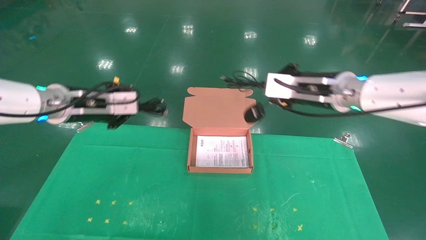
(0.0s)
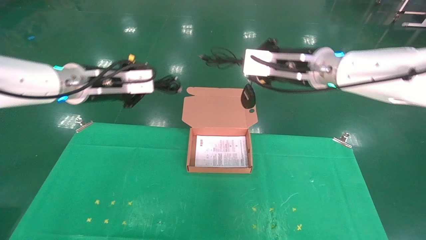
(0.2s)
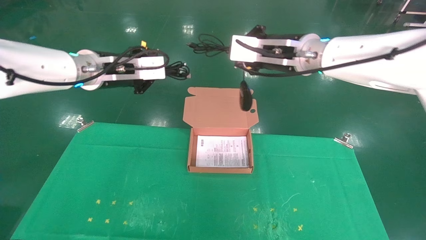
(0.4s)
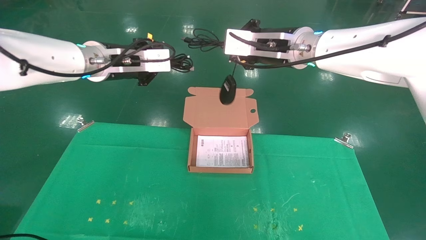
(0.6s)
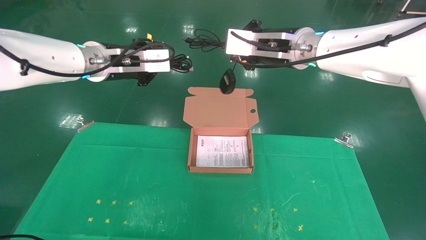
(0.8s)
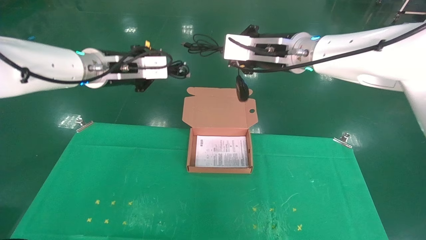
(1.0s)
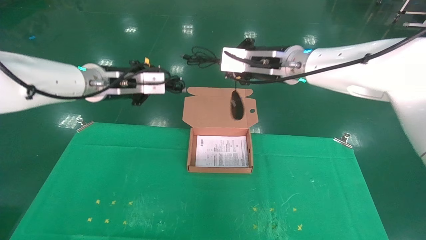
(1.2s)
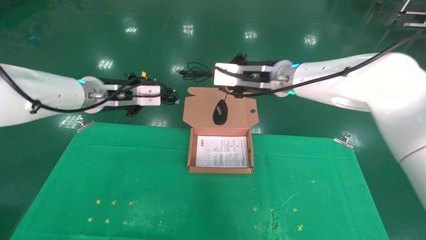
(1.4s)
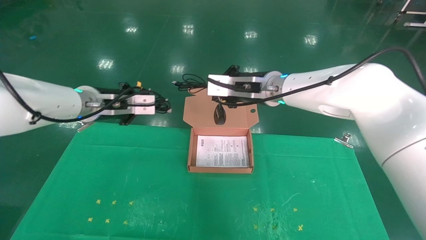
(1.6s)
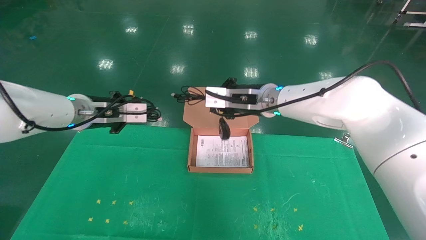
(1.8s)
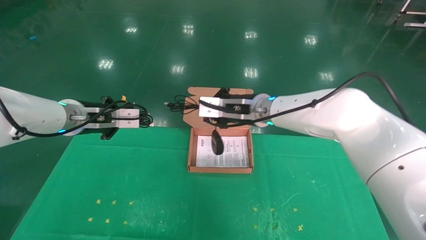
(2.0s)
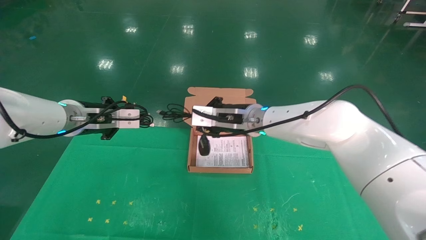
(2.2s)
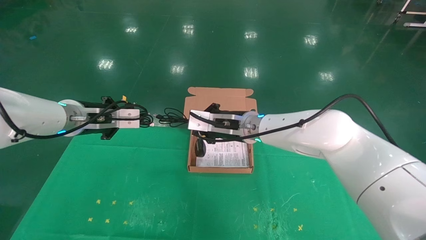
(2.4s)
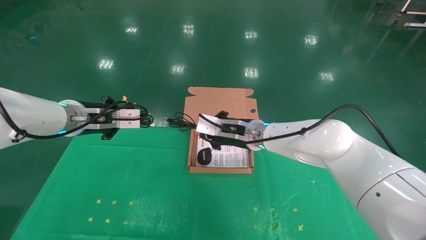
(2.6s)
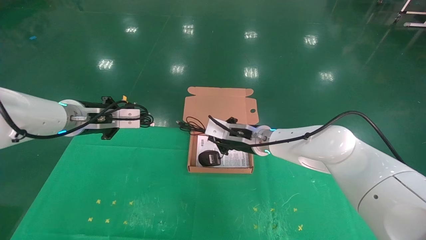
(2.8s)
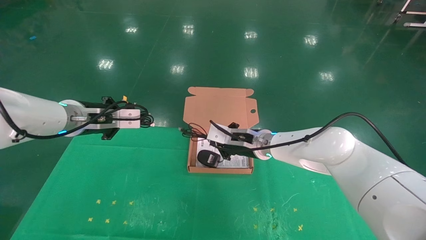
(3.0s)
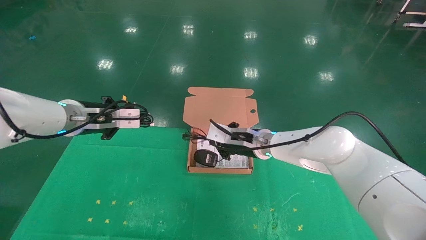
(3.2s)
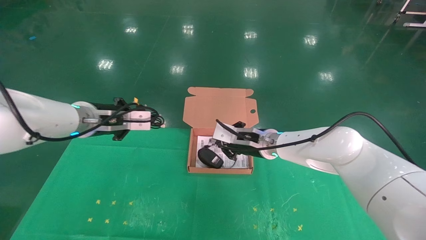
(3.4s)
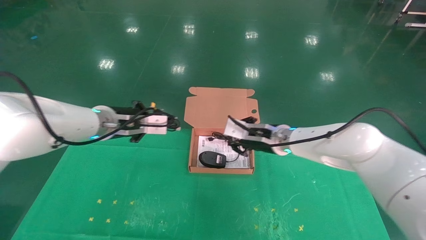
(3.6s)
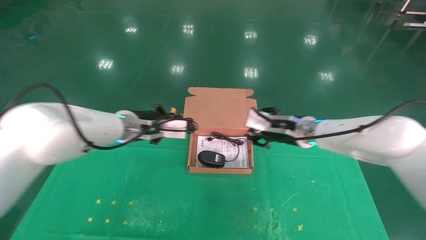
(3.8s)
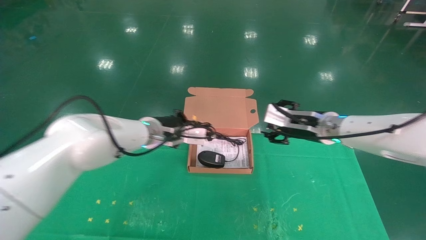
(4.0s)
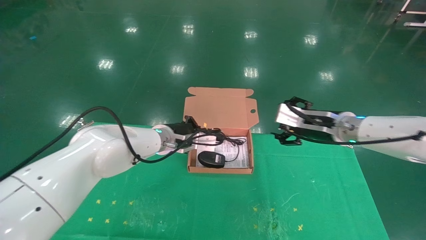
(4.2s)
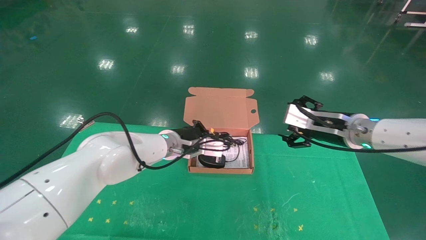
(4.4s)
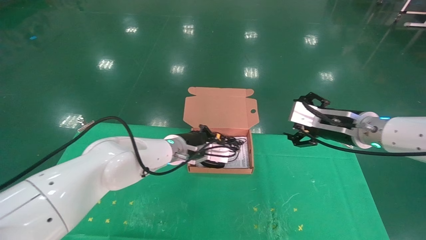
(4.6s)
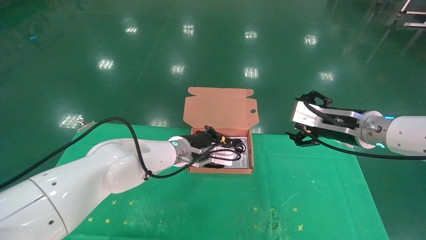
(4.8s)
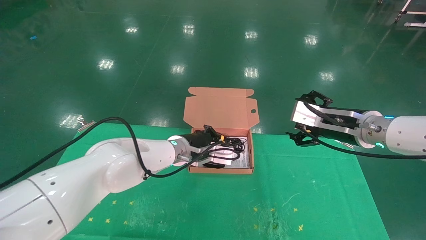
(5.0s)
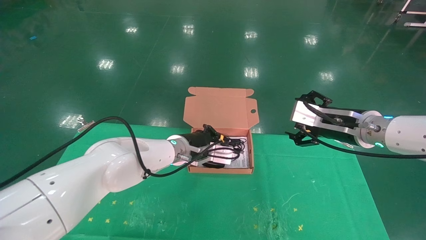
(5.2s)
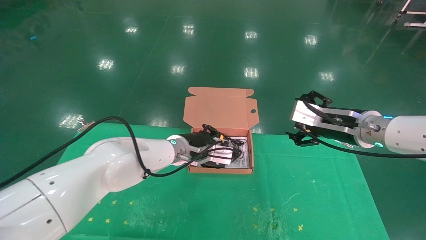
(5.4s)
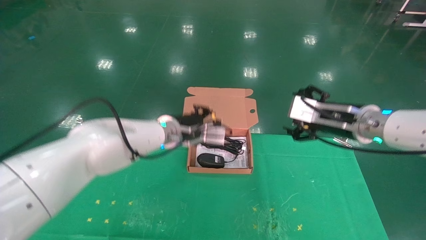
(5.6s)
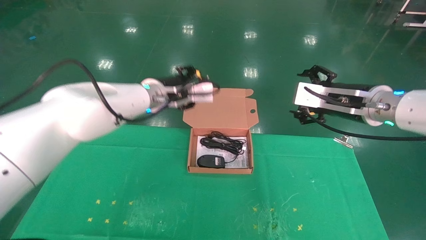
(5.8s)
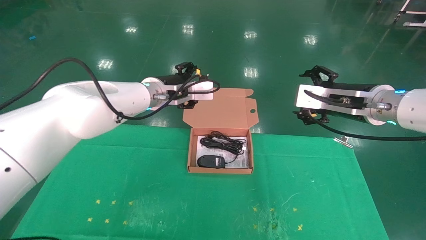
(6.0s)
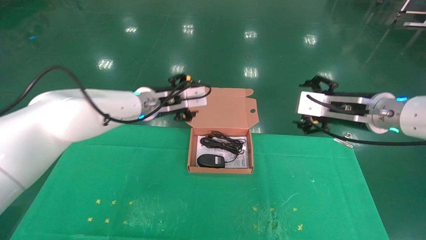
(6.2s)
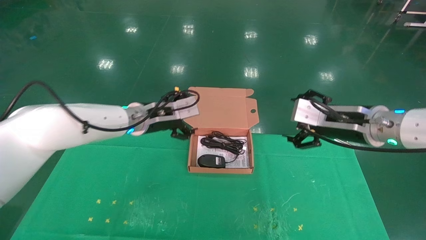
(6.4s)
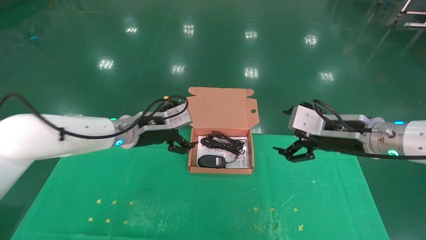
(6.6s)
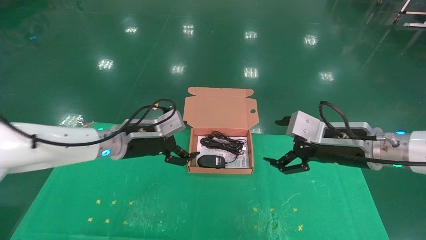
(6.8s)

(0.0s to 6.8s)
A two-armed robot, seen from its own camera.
Task of the whole recording: grasp data cable left put into box grasp mouse right put into box.
Step, 0.0s - 5.2s: Place the mouse and power cord into the box.
0.0s - 1.4s: The left gripper travels to the right by about 5 cm. The right gripper heads to the left and upward, covering about 10 cm.
1.4s - 2.8s: The right gripper goes roughly 15 cm downward, while the left gripper goes some 5 cm downward.
2.8s - 4.0s: The left gripper moves to the right, forward and downward, approximately 15 cm, while the right gripper shifts some 15 cm to the right, and opens up.
4.0s - 5.4s: The right gripper shifts some 5 cm backward, and opens up.
5.4s - 6.8s: The right gripper goes roughly 5 cm backward. Meanwhile the left gripper heads to the left and backward, covering some 15 cm, and opens its fingers.
